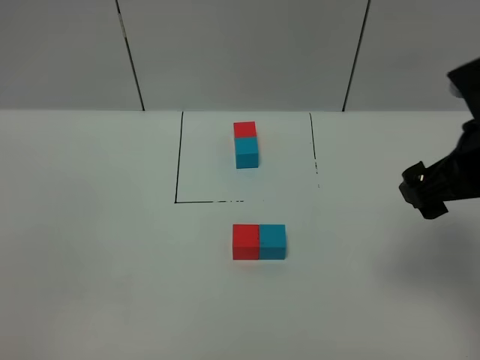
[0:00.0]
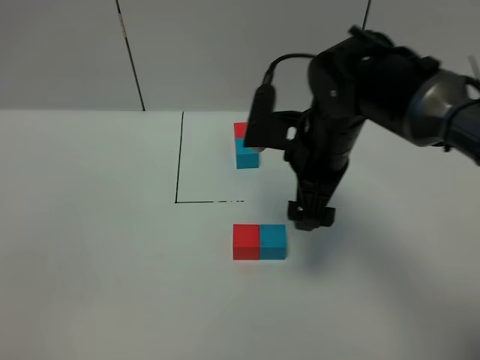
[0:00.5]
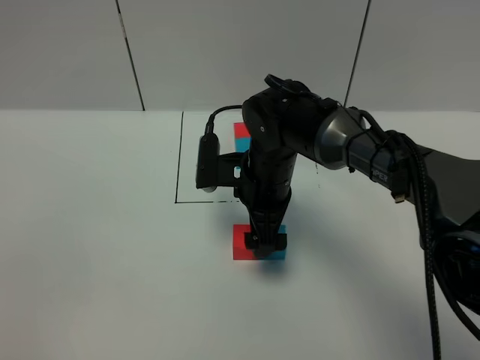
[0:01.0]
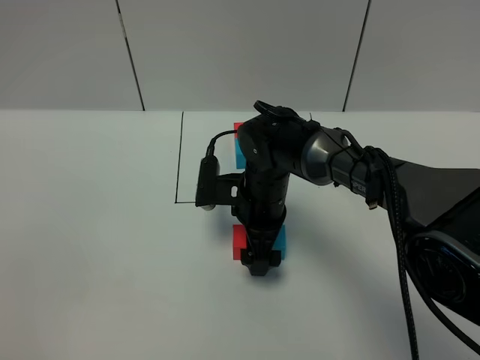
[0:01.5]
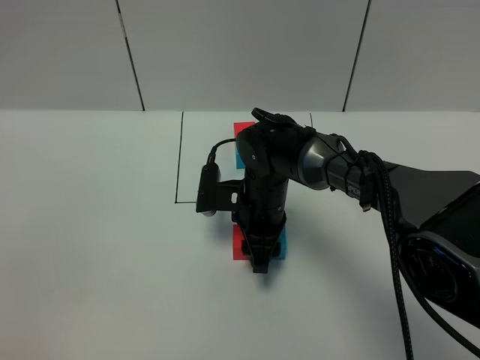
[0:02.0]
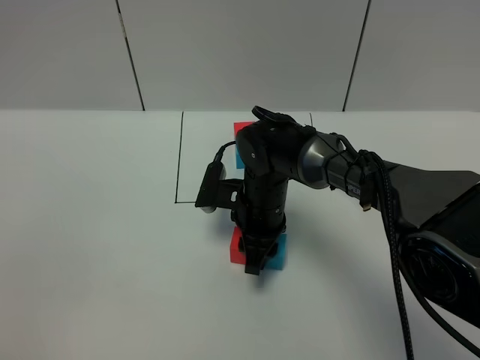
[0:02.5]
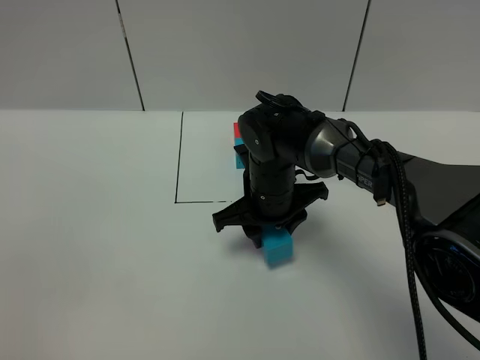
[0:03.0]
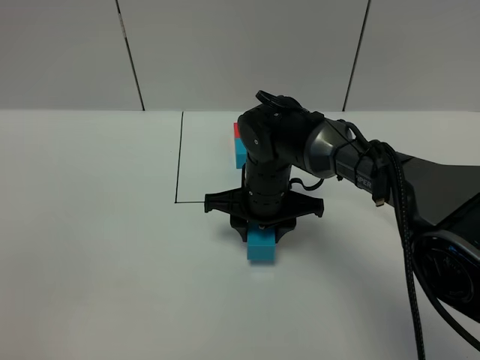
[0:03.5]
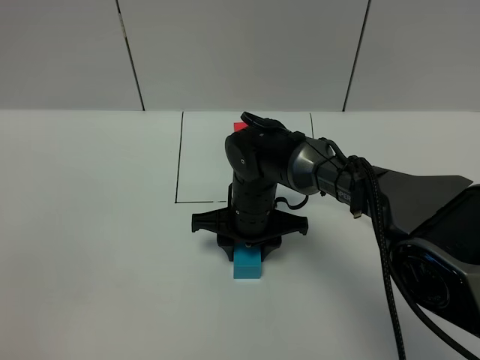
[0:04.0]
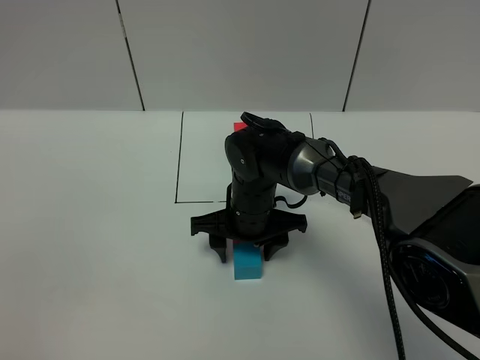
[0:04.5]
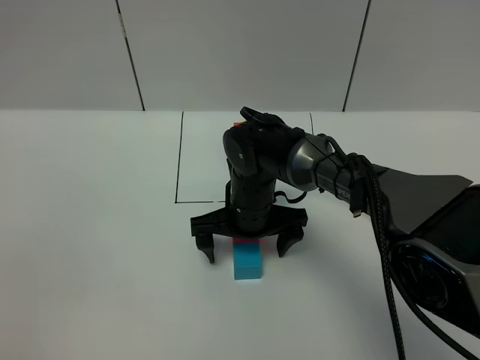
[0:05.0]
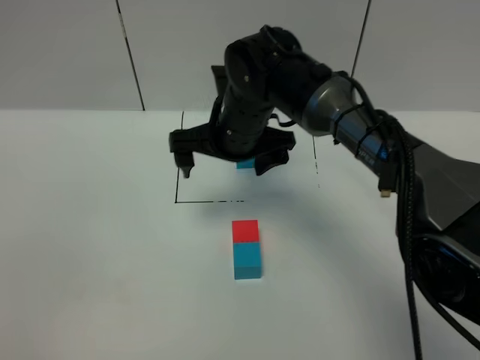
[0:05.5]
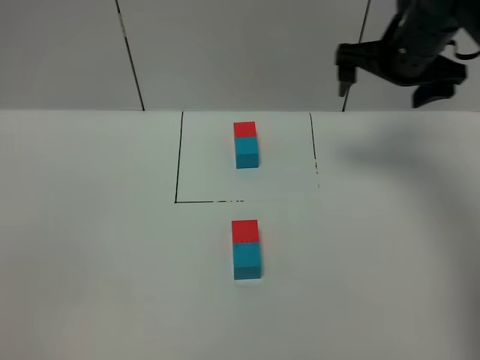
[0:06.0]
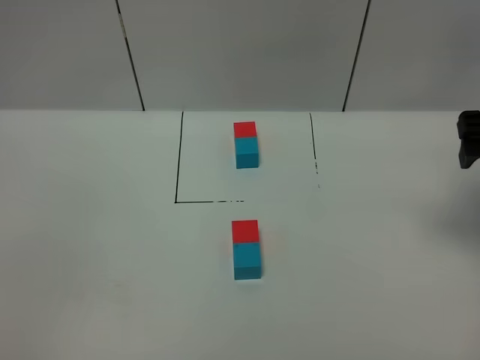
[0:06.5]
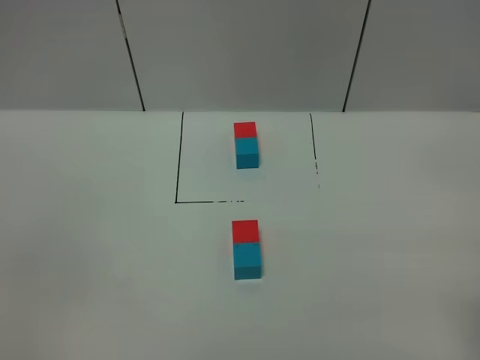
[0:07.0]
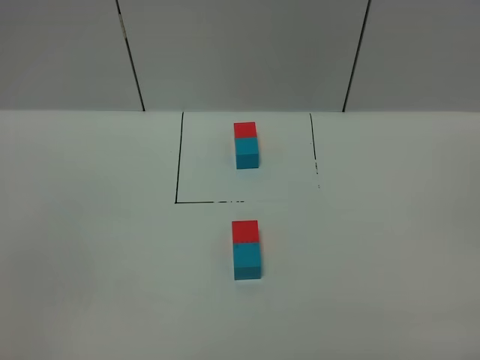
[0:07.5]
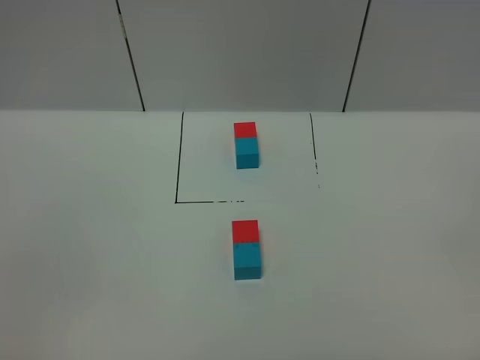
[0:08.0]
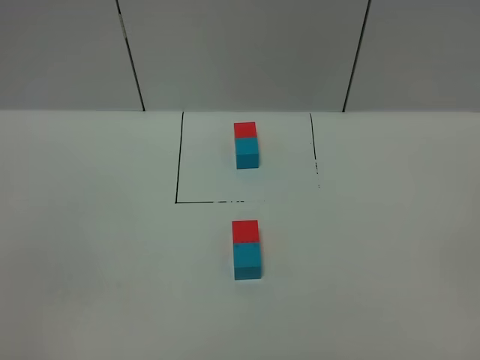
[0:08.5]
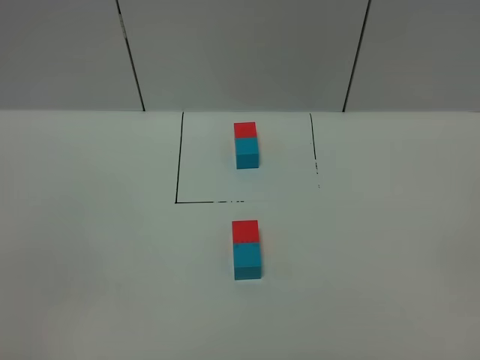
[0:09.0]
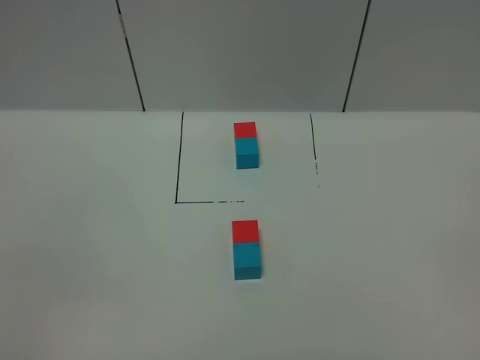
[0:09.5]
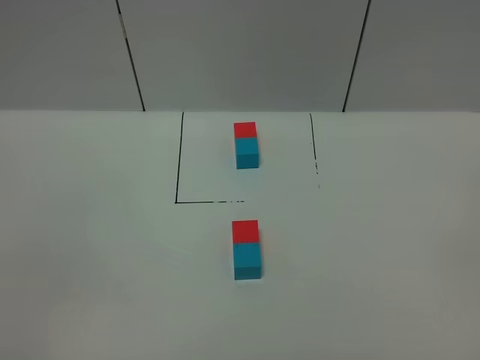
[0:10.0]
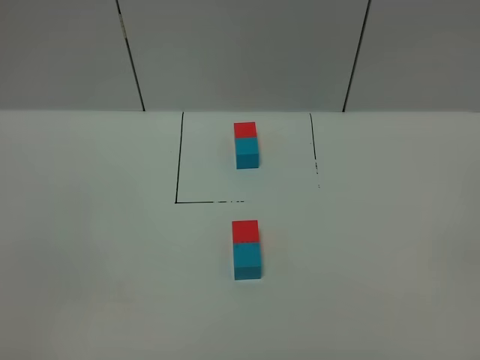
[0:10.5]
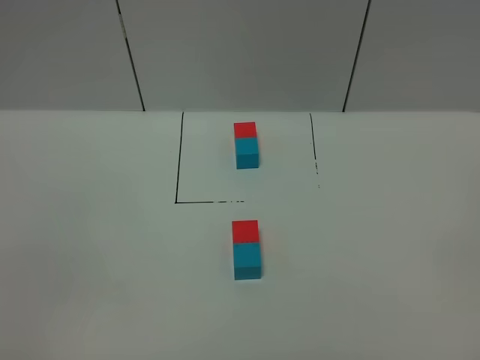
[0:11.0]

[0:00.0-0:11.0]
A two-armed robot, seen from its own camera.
Task of the whole recording: According to the building block template in front, assemble the scattered blocks together.
Step, 0:00.0 to 0:05.0: Adjust the pose of the building blocks.
0:00.0 to 0:02.0: The right gripper heads to the left, downward and forward, covering about 30 cm, and closes up.
0:03.5 to 0:05.5: The right gripper travels upward by approximately 10 cm, and opens.
0:05.5 to 0:07.5: The right gripper heads backward and to the right, covering approximately 50 cm.
0:09.0 to 0:11.0: Both grippers stay about where they are.

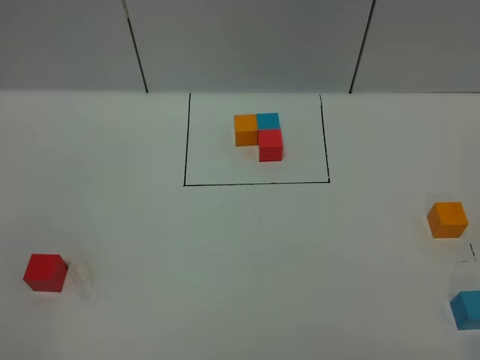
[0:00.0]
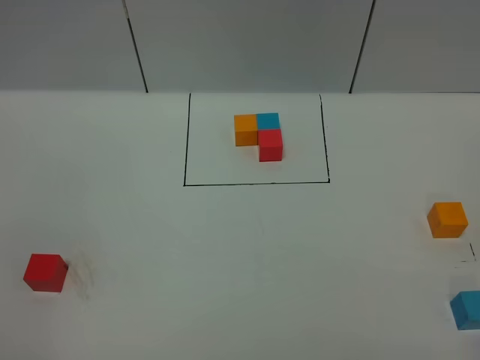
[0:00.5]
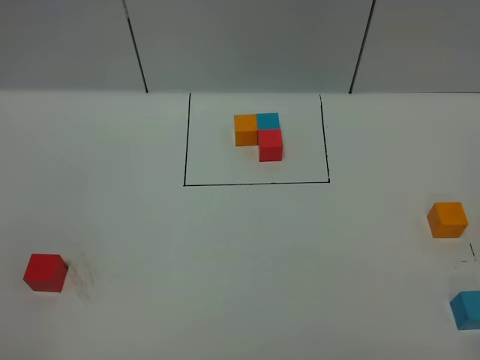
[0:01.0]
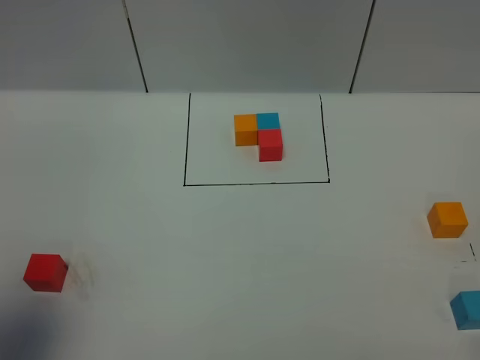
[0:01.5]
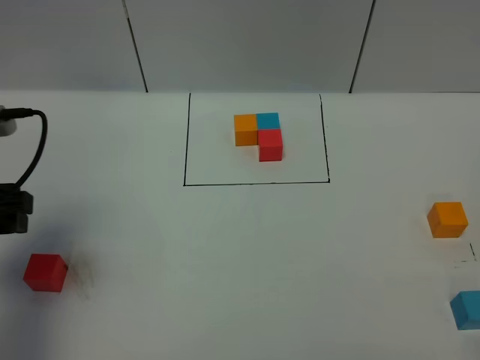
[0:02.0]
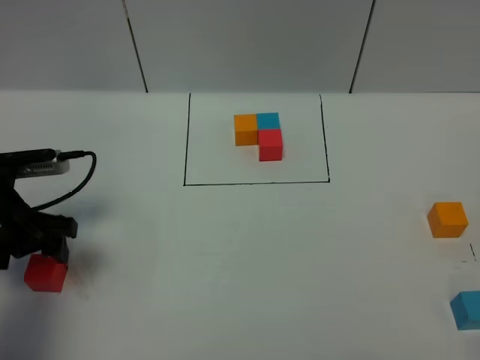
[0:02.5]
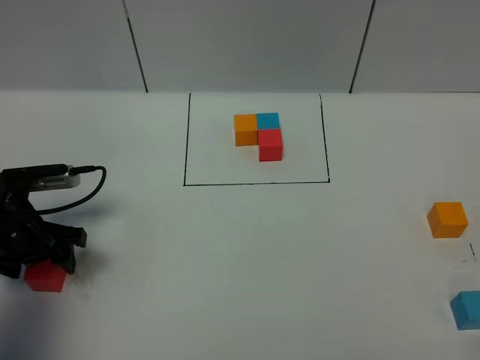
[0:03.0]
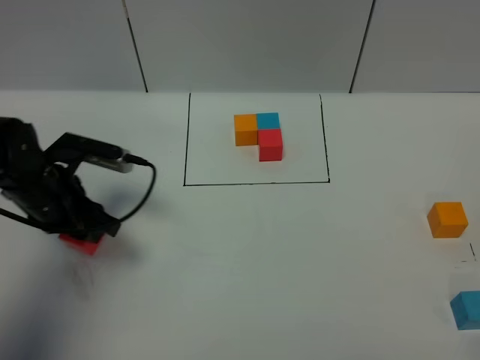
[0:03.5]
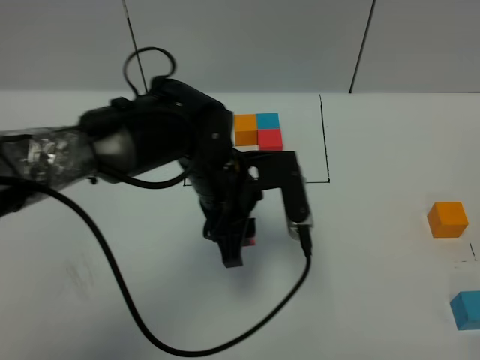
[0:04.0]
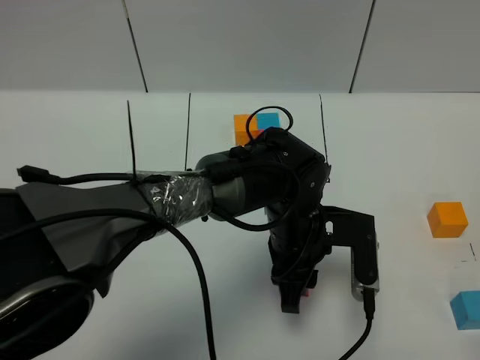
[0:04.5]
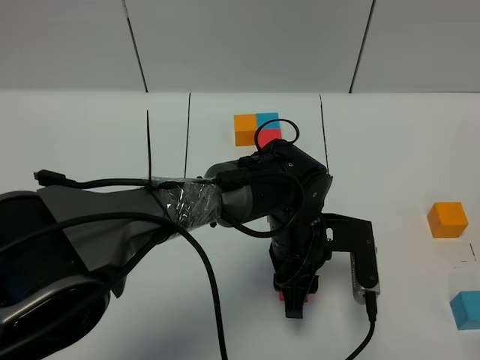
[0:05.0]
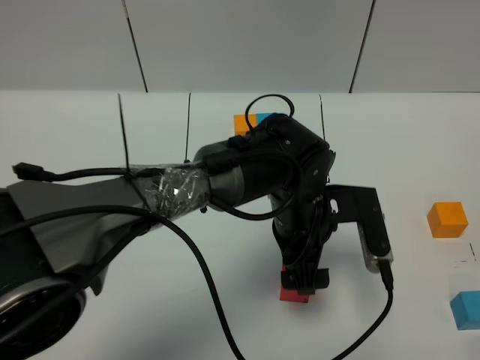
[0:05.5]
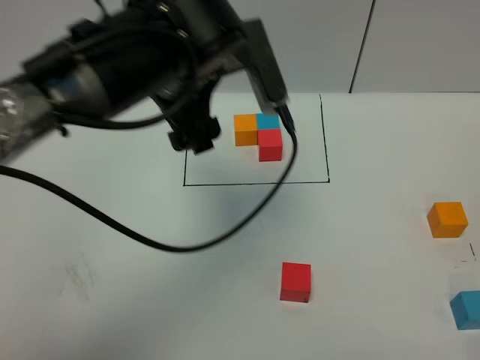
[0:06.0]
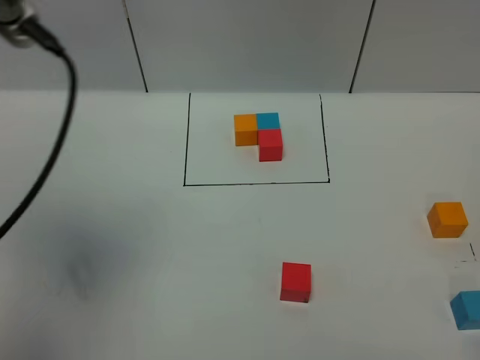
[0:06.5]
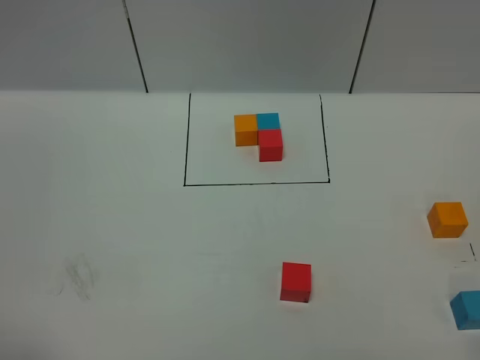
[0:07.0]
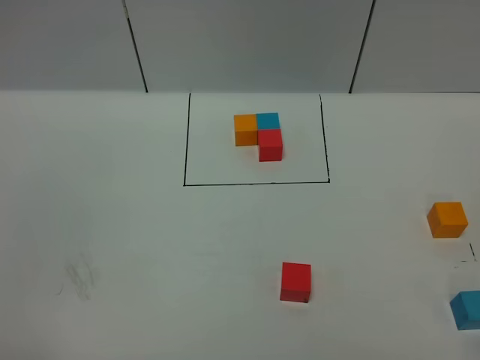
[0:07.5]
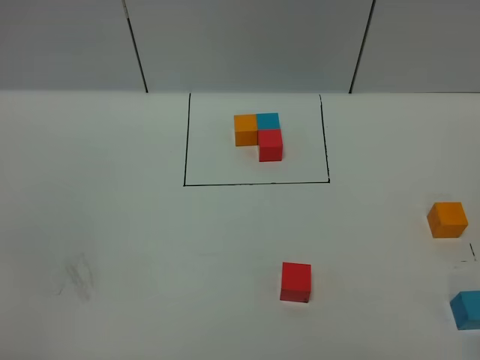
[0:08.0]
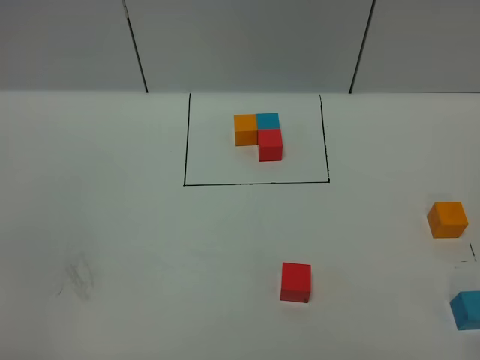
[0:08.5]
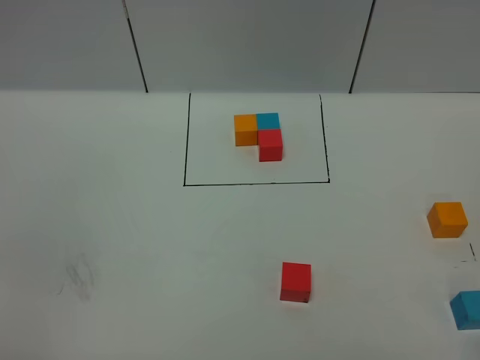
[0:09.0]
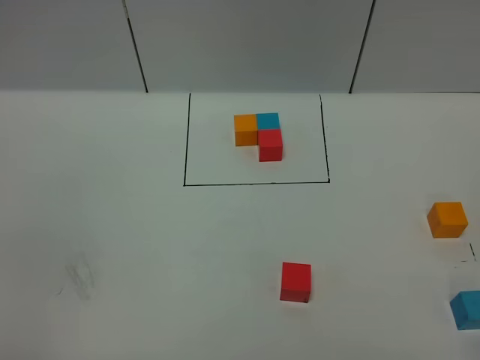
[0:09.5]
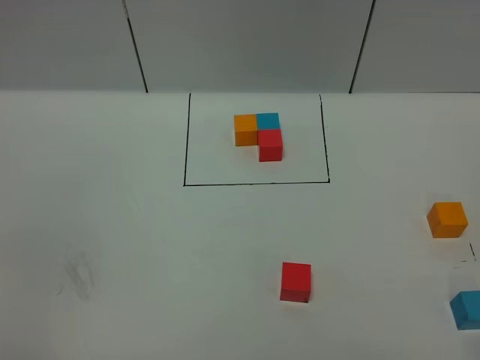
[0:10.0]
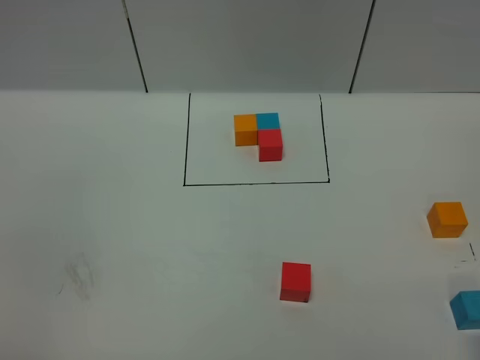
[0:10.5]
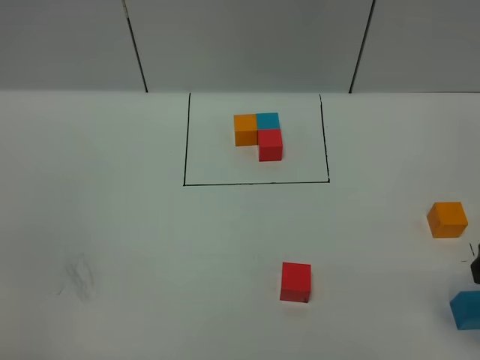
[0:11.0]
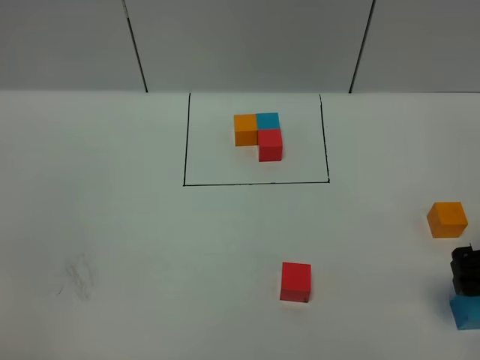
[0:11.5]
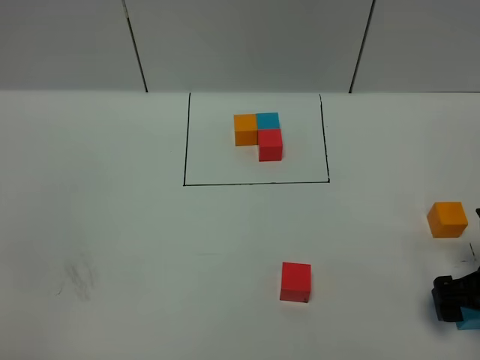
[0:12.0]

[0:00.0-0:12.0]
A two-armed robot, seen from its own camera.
Task of the whole recording: According to the building block template in front, assemble the scattered blocks together.
Step, 0:02.0 to 0:05.0: Put the red cube in the center of the table.
0:00.0 to 0:02.0: The left gripper travels forward by roughly 25 cm.
0:02.0 to 0:04.0: The left gripper is displaced to the right by about 30 cm, and closes its fingers.
0:04.0 to 0:06.0: The left gripper moves upward, approximately 15 cm, and opens its fingers.
0:06.0 to 0:08.0: The left gripper goes roughly 40 cm backward and to the left.
0:10.0 to 0:12.0: The right gripper is displaced forward and downward by about 25 cm, and opens its fingers.

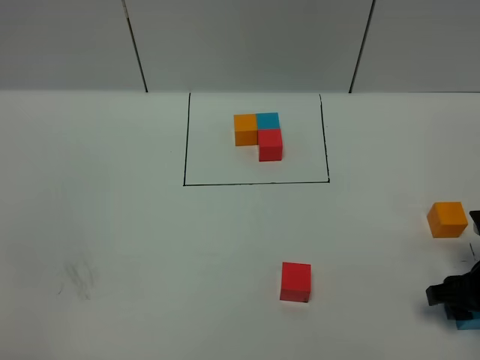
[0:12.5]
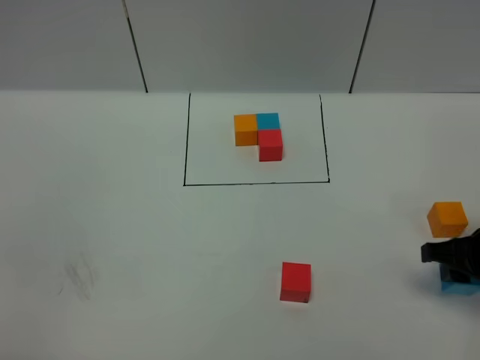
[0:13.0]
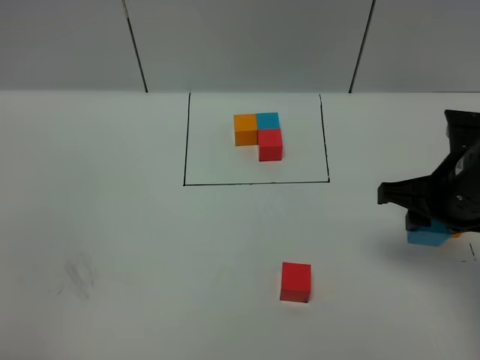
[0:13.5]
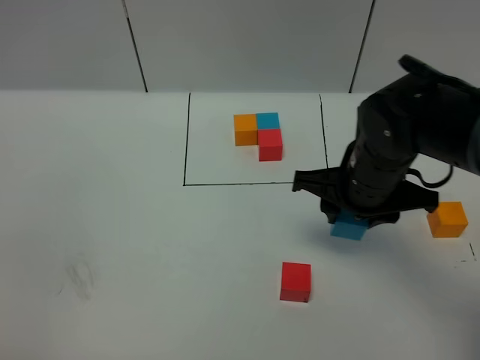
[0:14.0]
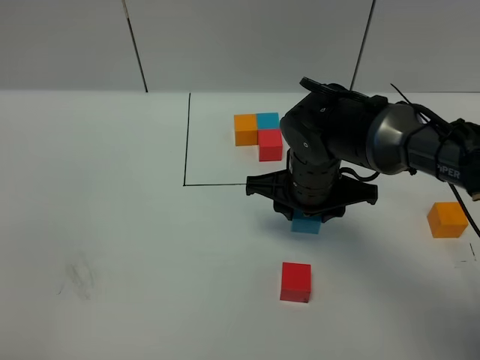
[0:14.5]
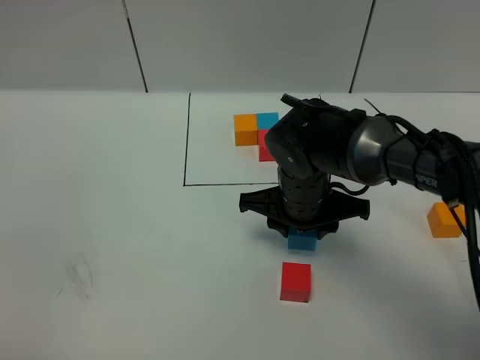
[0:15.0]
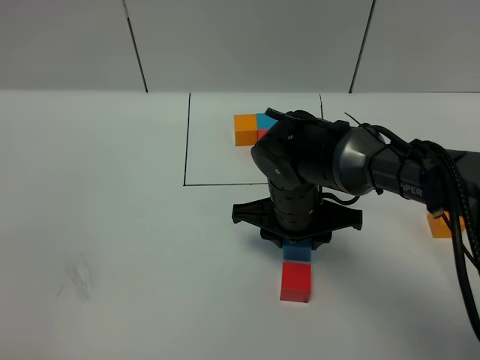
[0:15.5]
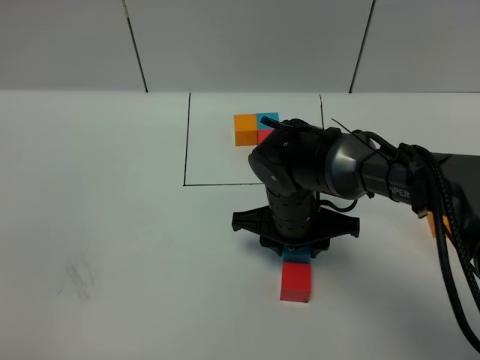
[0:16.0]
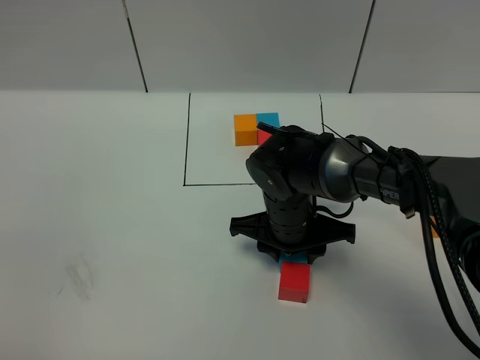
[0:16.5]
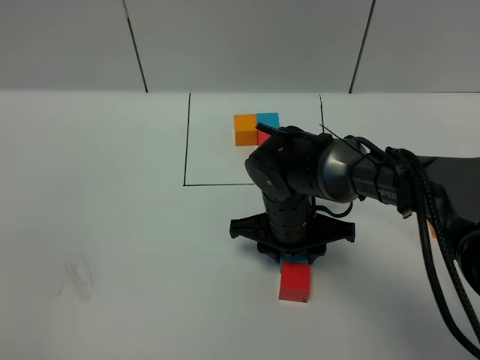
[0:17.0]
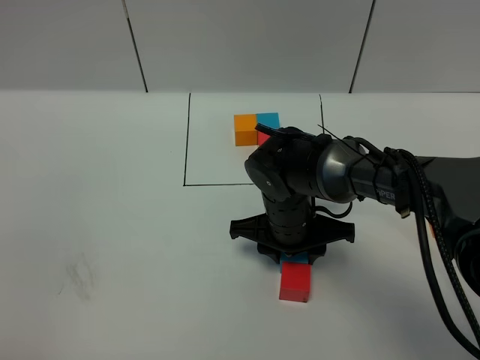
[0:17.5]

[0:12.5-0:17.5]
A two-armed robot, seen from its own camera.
Task of the whole recording: According to the building block template in front, assemble the scattered blocks together.
0:12.5 to 0:15.0: The right gripper goes some 25 cm to the left and forward.
0:15.0 to 0:17.5: There are only small adjustments of the grippers.
